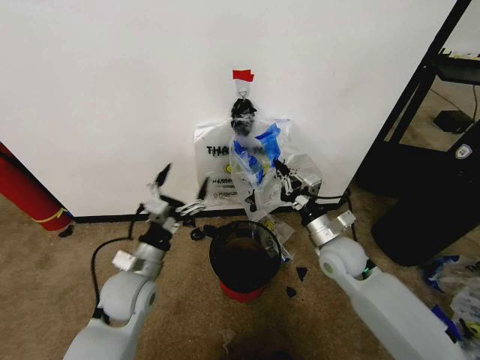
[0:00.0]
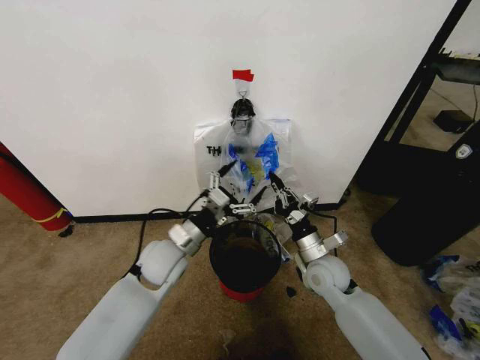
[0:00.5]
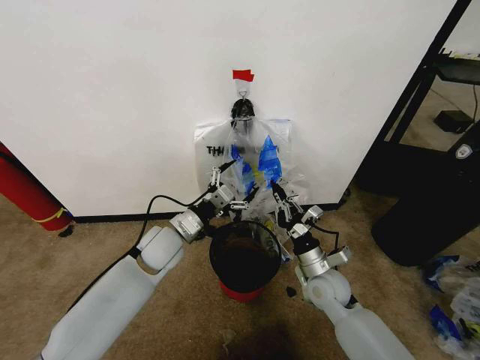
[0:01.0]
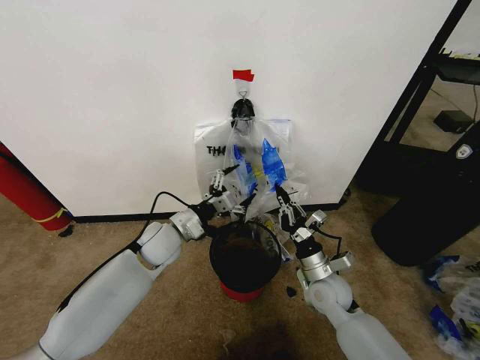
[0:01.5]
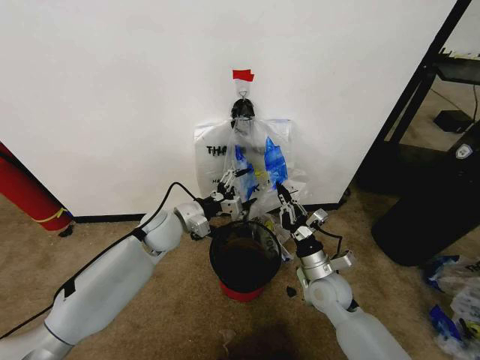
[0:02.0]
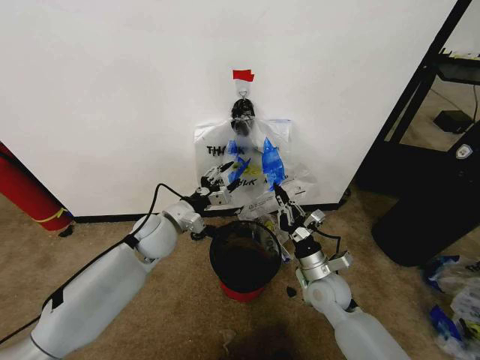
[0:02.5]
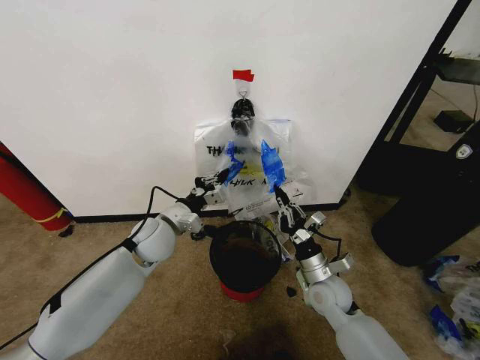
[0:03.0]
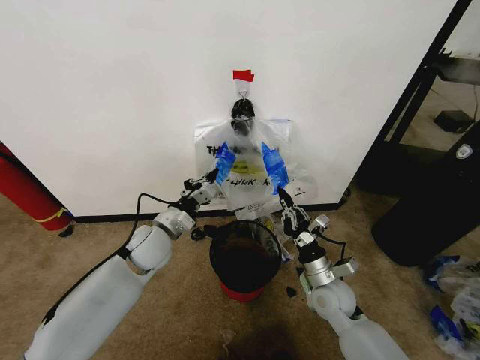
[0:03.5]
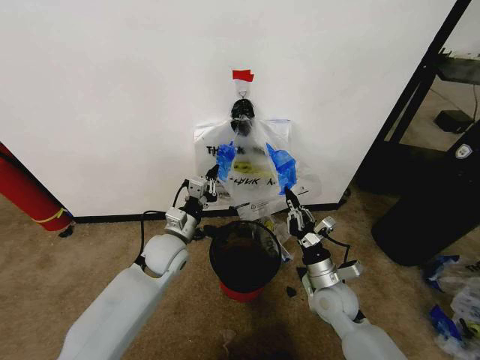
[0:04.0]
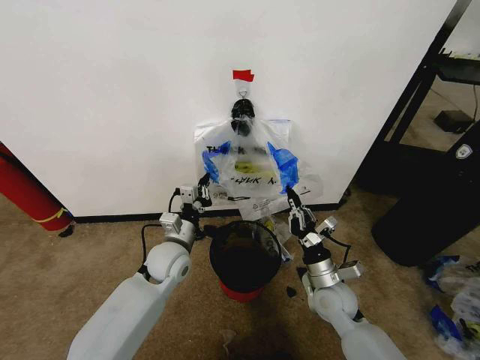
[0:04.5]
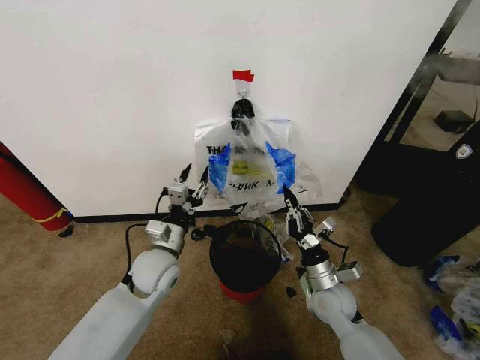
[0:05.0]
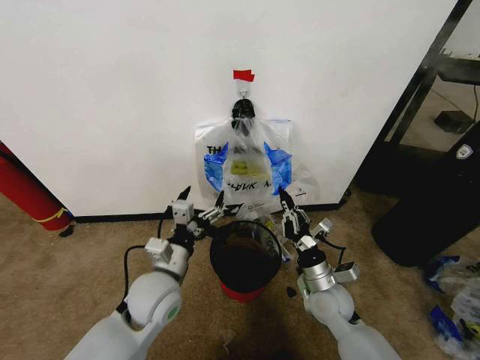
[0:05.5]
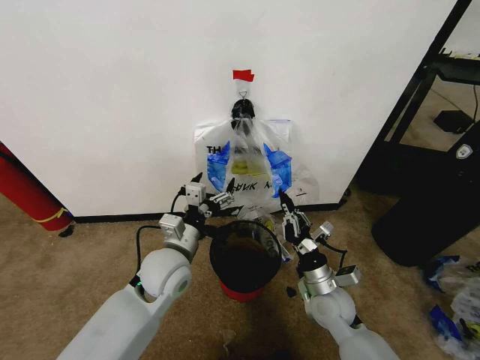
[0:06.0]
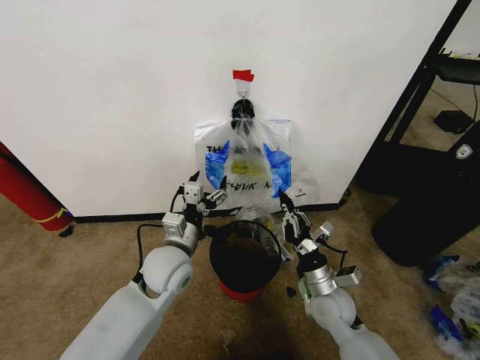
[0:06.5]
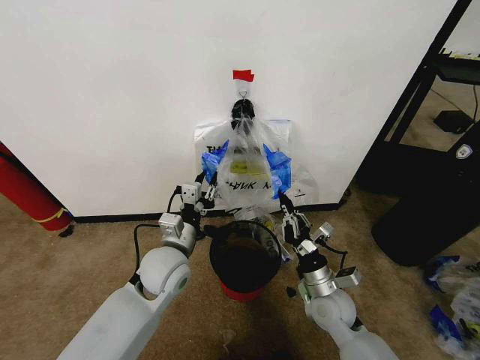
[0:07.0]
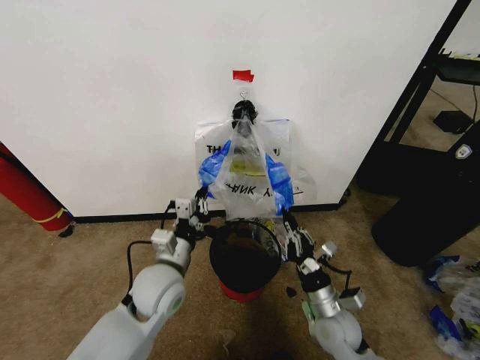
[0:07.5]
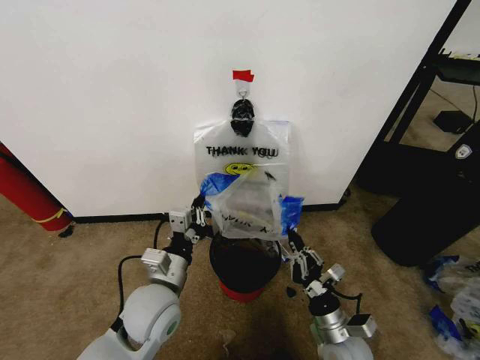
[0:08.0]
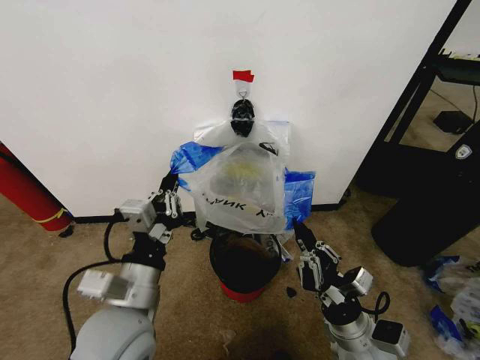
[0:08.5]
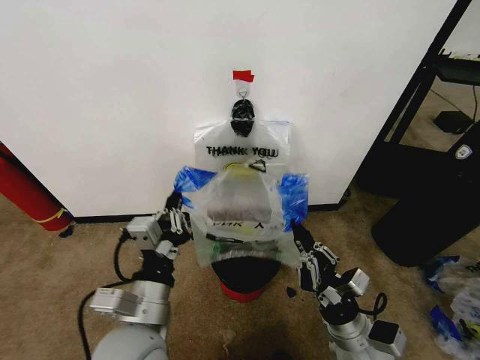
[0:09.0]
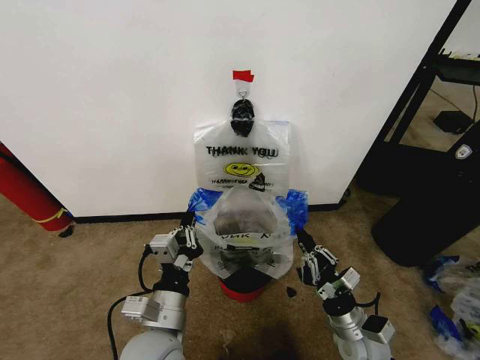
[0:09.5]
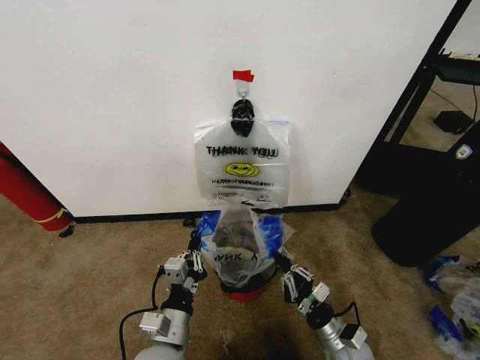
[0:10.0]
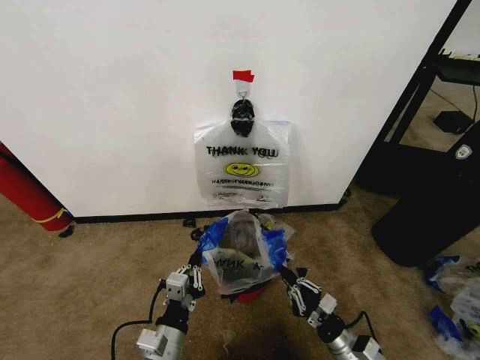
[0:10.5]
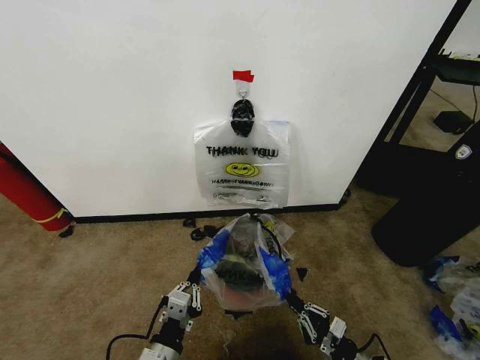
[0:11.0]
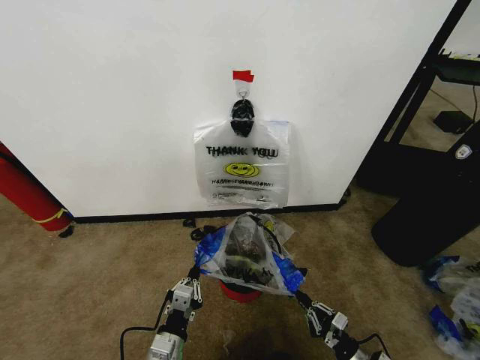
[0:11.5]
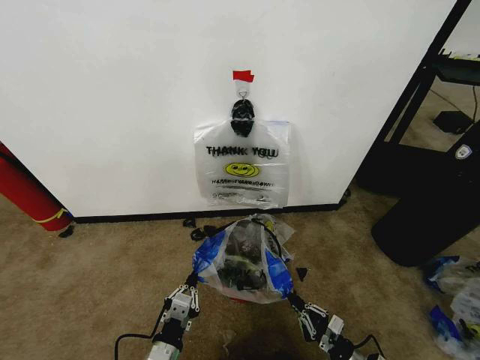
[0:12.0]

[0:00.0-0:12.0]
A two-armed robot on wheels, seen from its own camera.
Task of the whole recording: Pick up the garbage bag from the wall and place it over the trash bin.
0:00.0 to 0:02.0: The left gripper travels forward by about 15 cm. The right gripper shifts approximately 10 cm downward.
0:02.0 to 0:04.0: The left gripper ends up roughly 5 cm from where it was, and closes its fingers.
0:04.0 to 0:06.0: The left gripper moves backward, approximately 5 cm, and opens its fingers.
0:06.0 to 0:08.0: The grippers both shift backward by approximately 10 cm. The left gripper closes.
0:08.0 to 0:10.0: The left gripper moves backward and downward, some 10 cm; the right gripper goes roughly 5 cm downward.
0:10.0 to 0:12.0: The left gripper shifts about 5 cm downward. The right gripper goes some 10 cm to the right, downward and backward.

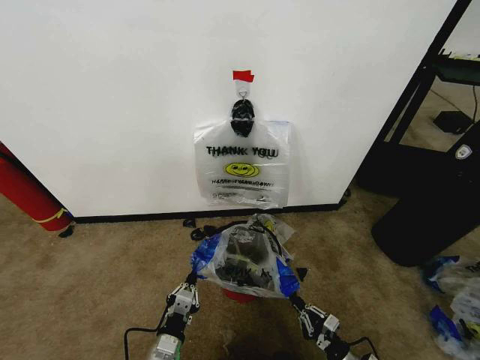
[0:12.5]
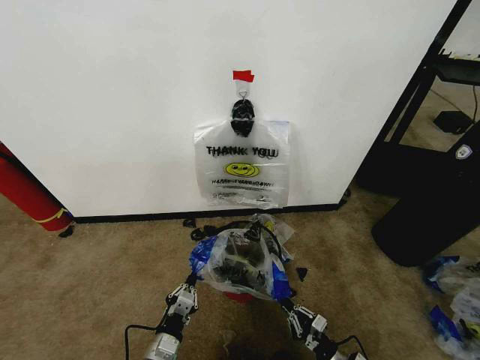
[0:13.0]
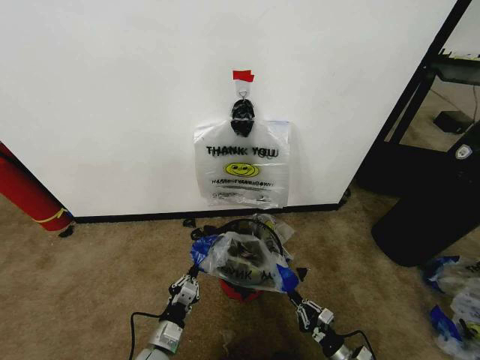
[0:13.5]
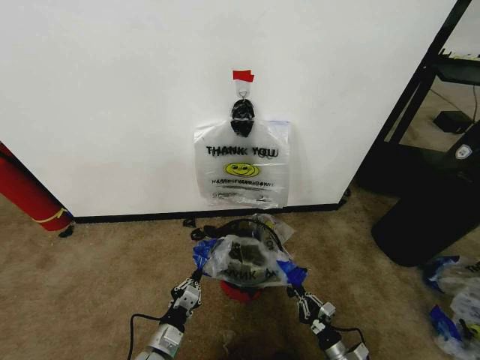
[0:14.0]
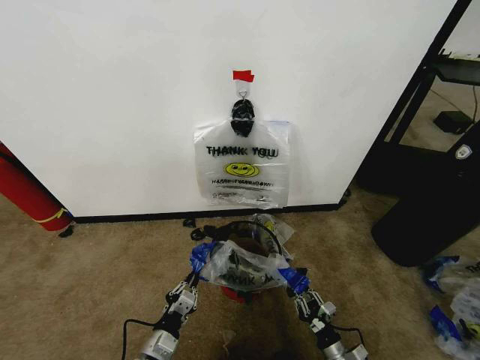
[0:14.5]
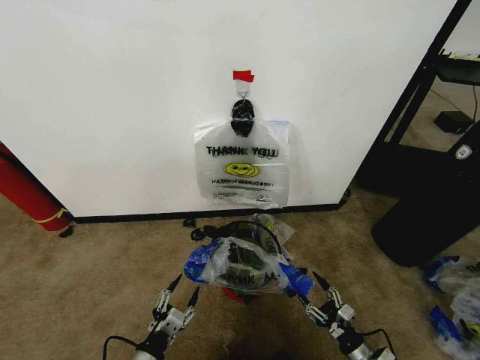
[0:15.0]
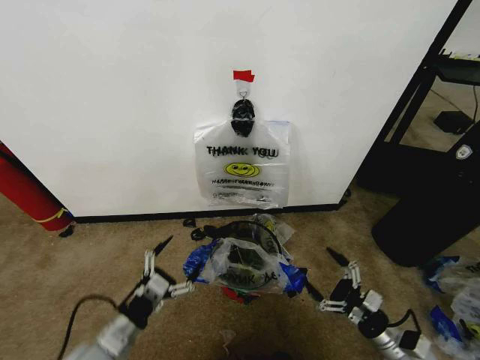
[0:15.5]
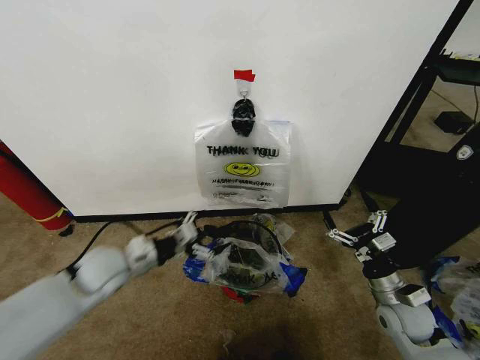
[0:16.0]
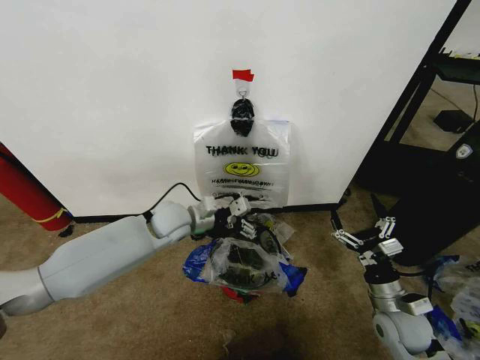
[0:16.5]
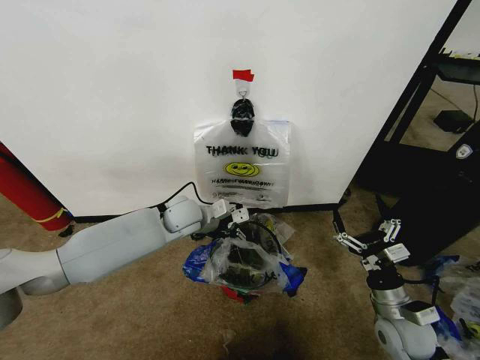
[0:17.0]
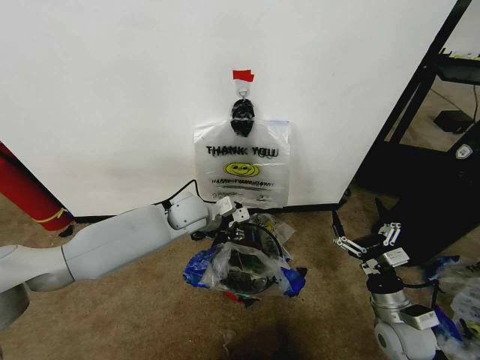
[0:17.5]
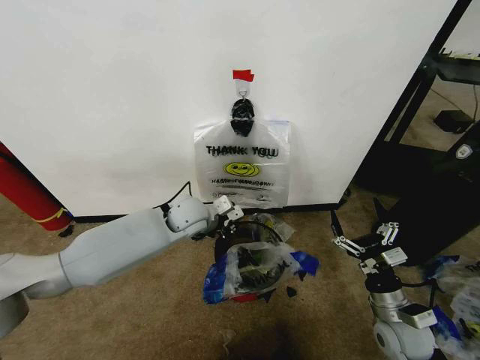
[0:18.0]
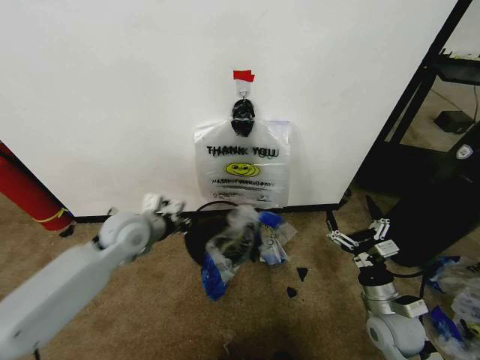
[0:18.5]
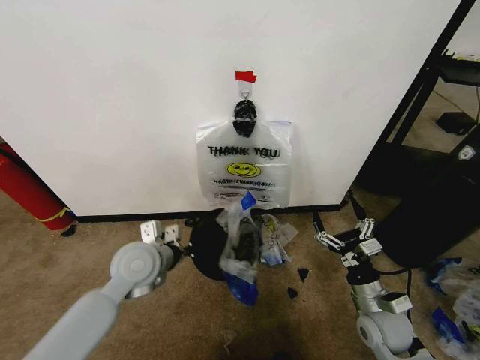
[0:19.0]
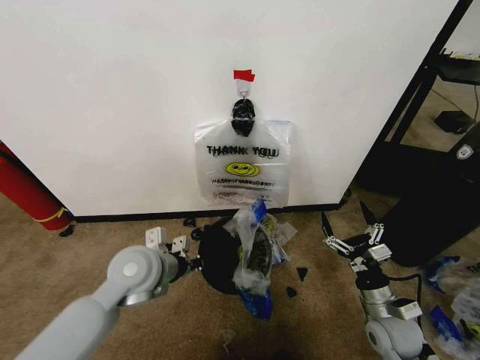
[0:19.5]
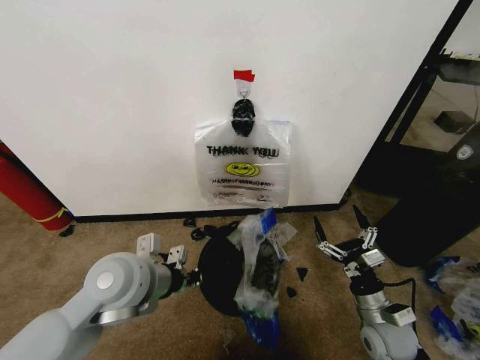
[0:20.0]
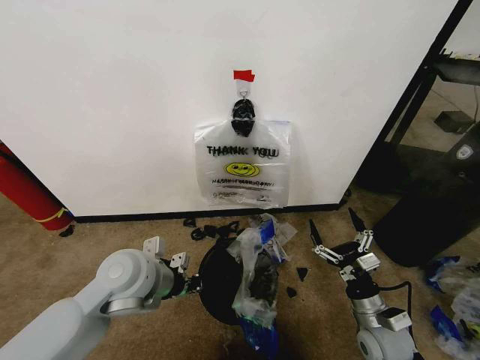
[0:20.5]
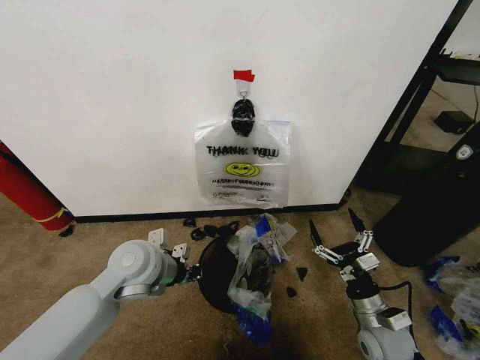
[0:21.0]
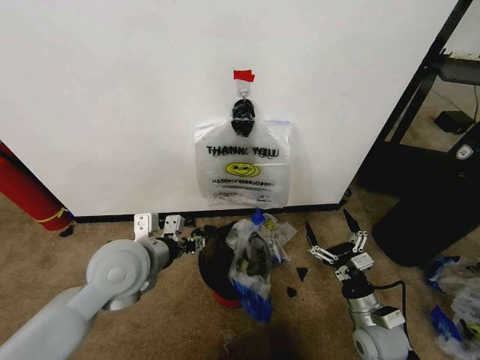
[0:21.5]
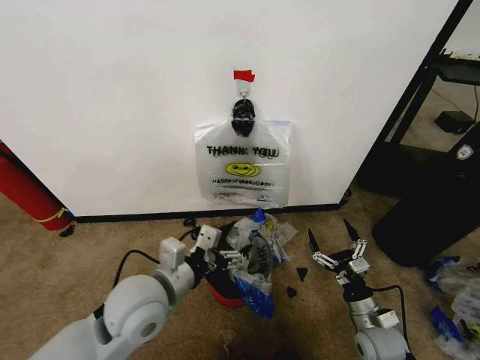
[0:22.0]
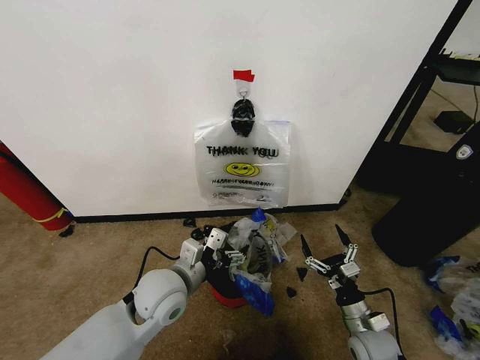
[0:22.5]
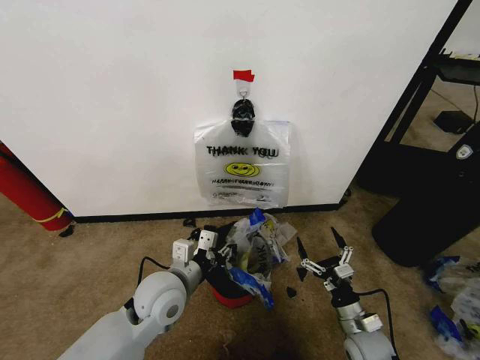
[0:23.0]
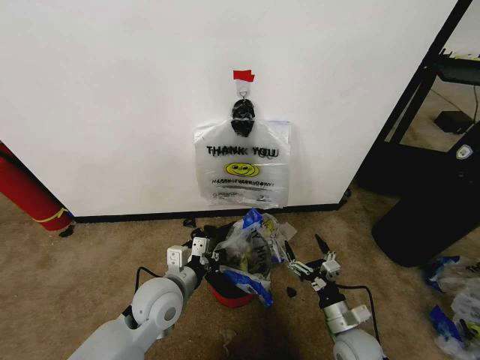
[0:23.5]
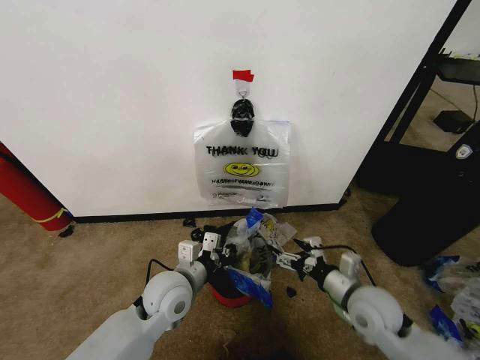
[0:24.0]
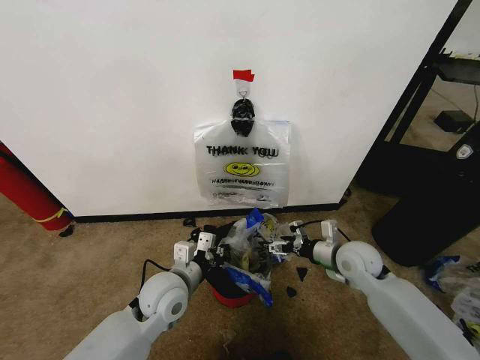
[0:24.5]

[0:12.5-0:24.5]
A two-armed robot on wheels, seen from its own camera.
Task of the whole recording: Pick up the garbage bag from the wall and place it over the trash bin.
0:12.5 to 0:14.5: The grippers make only small movements.
0:14.5 to 0:16.5: The left gripper travels forward and upward by about 35 cm, and opens its fingers; the right gripper shifts approximately 20 cm upward and forward, and opens its fingers.
0:16.5 to 0:18.5: The left gripper moves to the left and backward, approximately 10 cm, and closes up.
0:18.5 to 0:20.5: The left gripper is displaced backward by approximately 10 cm.
0:20.5 to 0:22.5: The right gripper goes roughly 5 cm downward. Meanwhile the left gripper is displaced downward and to the right by approximately 10 cm, and opens up.
0:22.5 to 0:24.5: The right gripper is displaced forward and upward by about 20 cm. Meanwhile the left gripper closes its fingers.

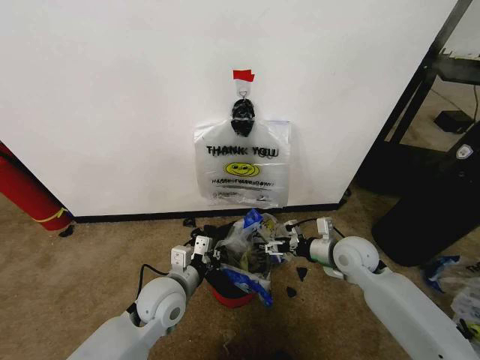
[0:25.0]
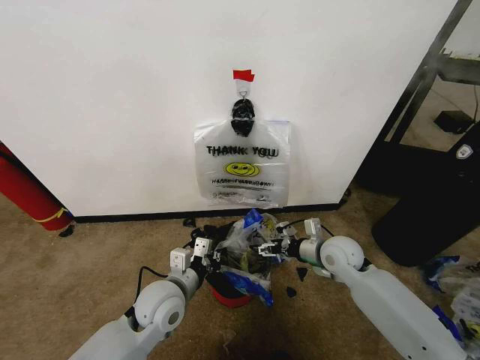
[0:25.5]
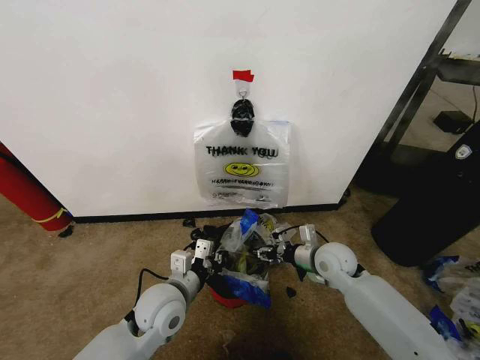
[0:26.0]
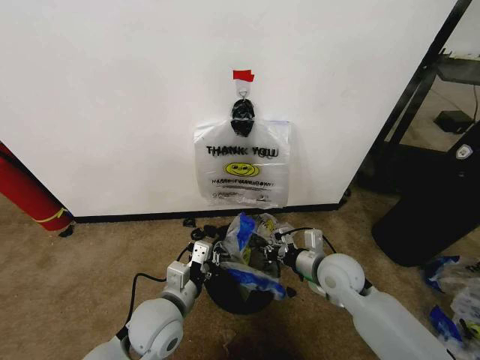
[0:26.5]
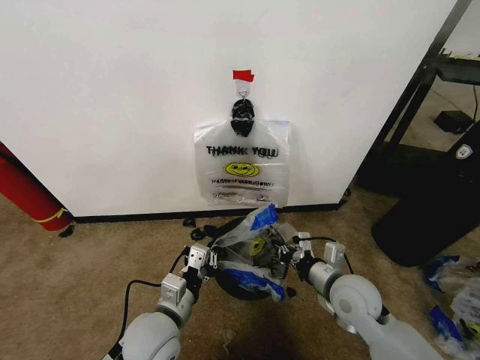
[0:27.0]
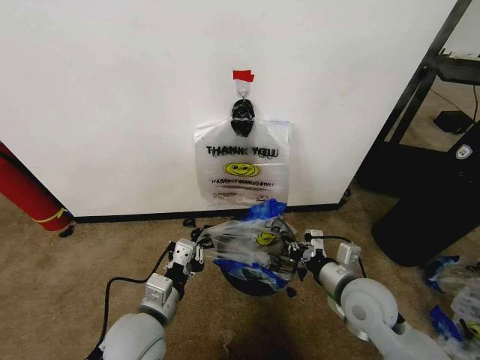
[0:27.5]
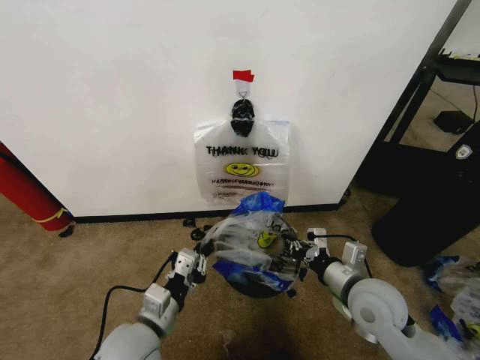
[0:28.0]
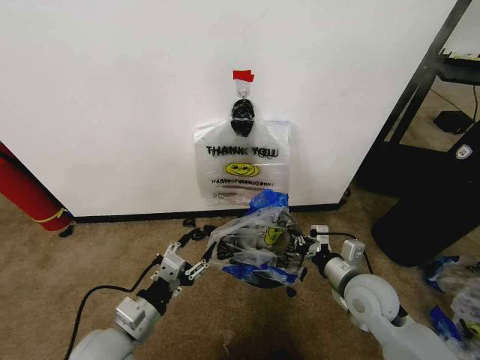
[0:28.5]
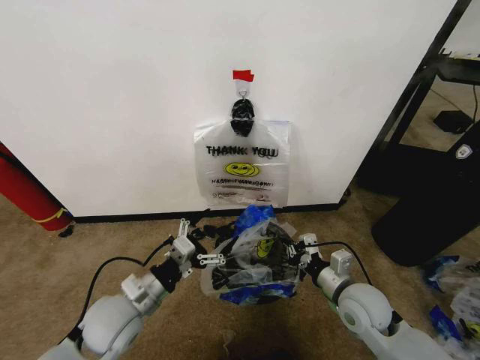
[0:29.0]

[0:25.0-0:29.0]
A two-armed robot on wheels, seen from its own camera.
Task of the whole recording: Pick up the garbage bag from the wall and place it over the trash bin.
0:25.0 to 0:27.0: Both grippers move backward, approximately 10 cm. The right gripper closes.
0:27.0 to 0:29.0: The left gripper moves to the left, some 10 cm, and opens.
